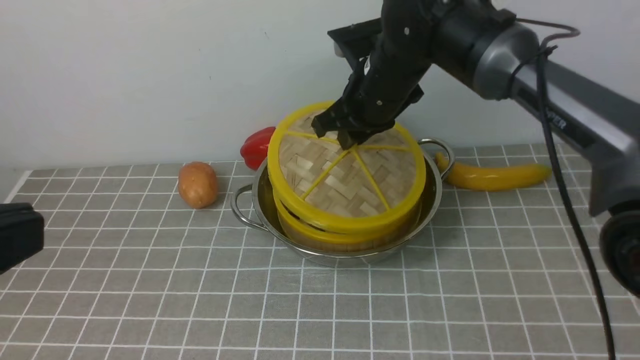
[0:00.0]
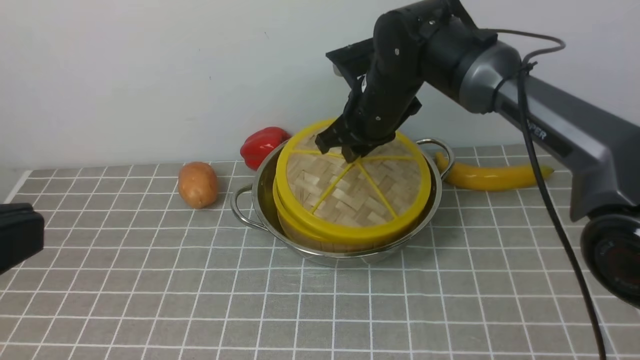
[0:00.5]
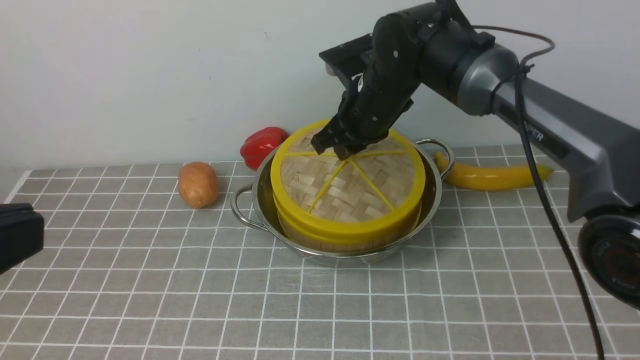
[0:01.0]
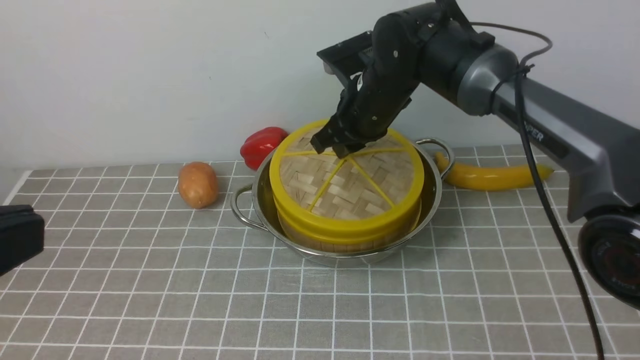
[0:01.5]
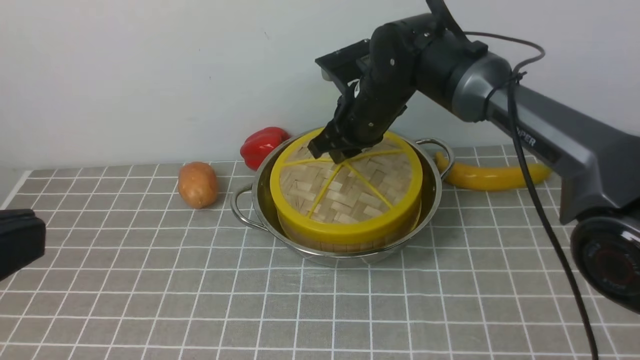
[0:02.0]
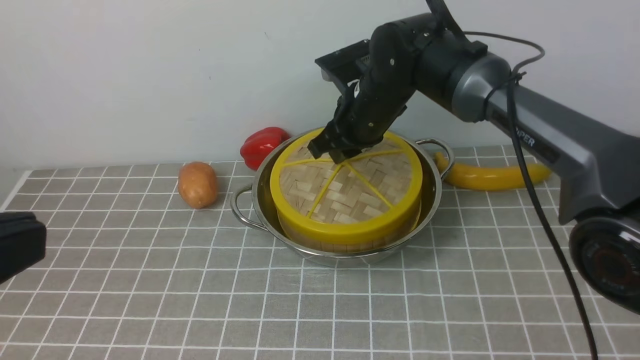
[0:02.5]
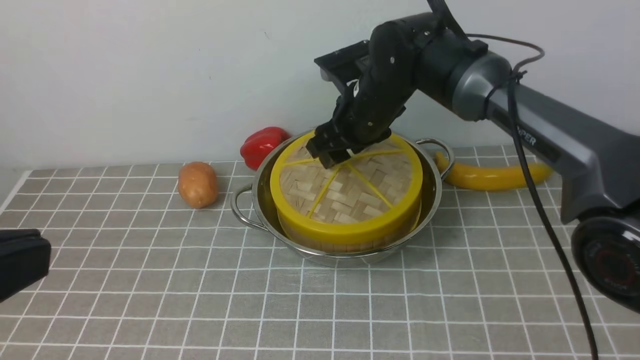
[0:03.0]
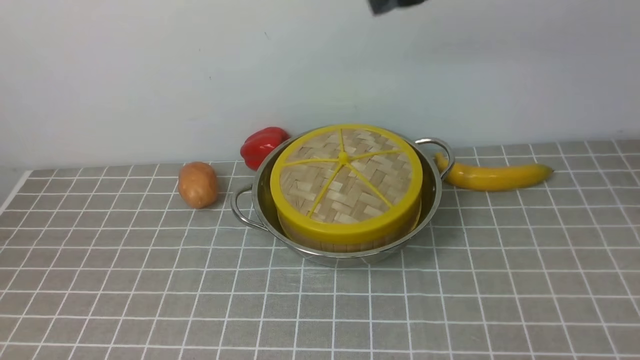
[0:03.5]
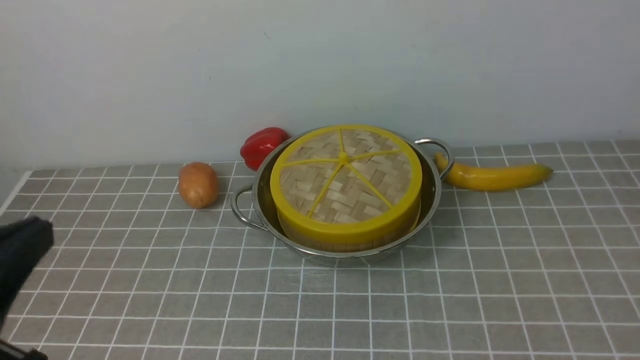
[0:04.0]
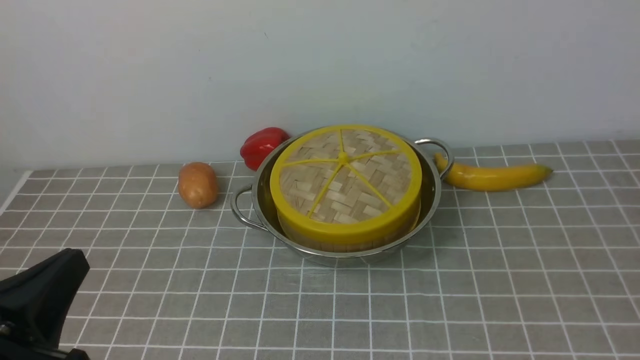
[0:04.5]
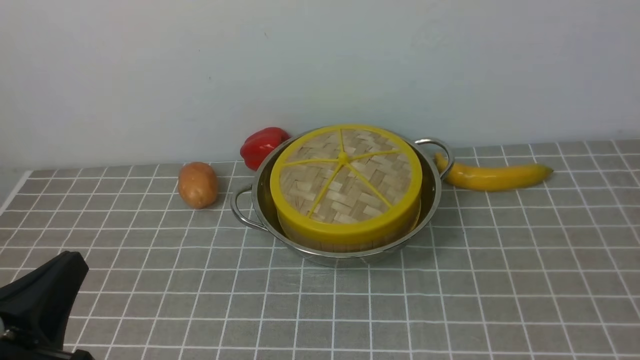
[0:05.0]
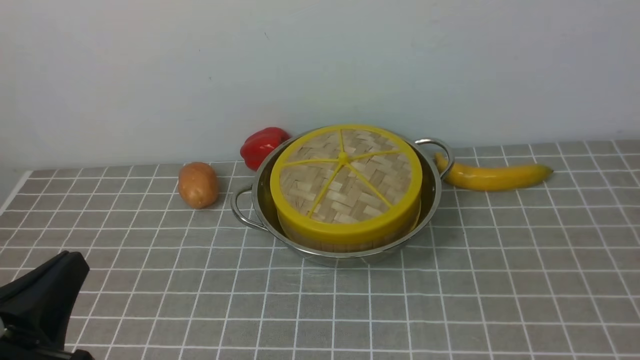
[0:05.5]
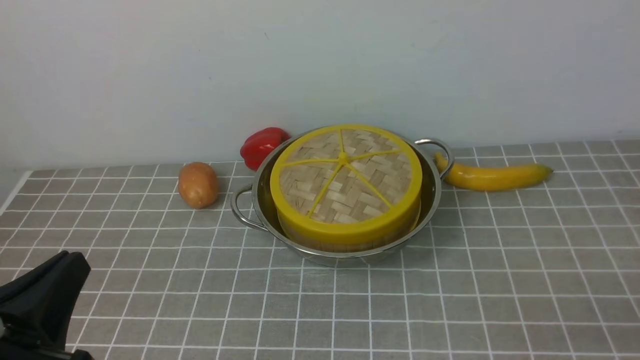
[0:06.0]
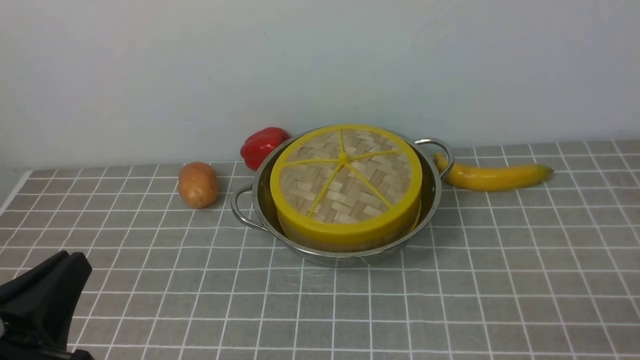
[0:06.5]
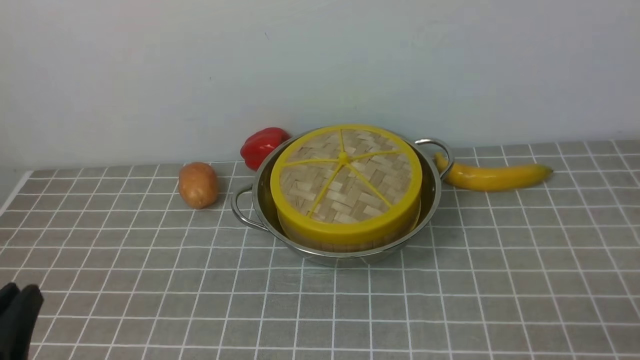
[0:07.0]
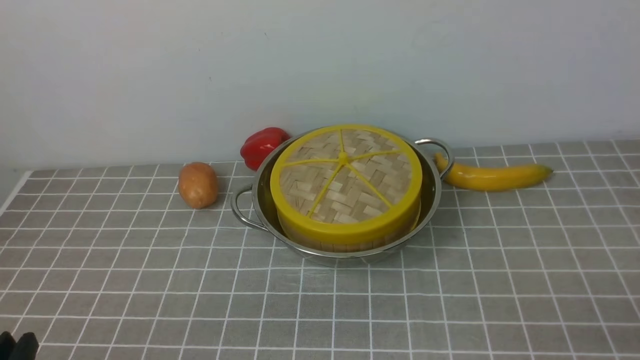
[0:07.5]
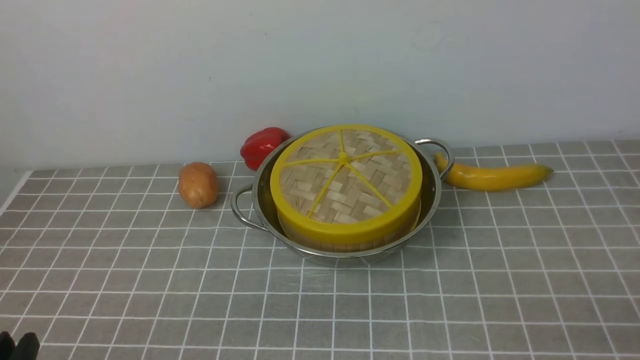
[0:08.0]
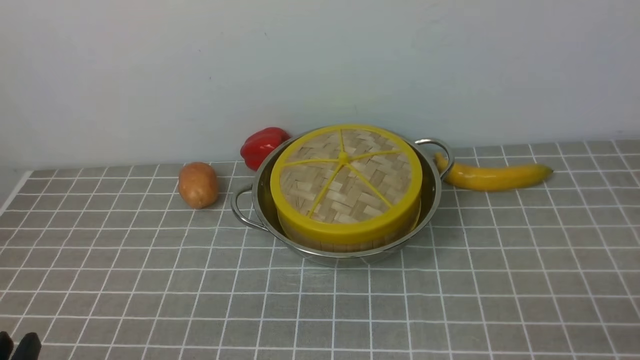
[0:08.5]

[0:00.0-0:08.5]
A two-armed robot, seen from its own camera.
Task of the whole recording: place the steamer in the pot on the grey tablecloth, and put the lid on the steamer.
Step, 0:00.0 to 0:03.0: use the right arm to place the steamer lid on the steamer.
0:00.0 to 0:02.0: The grippers move only a little.
0:02.0 to 0:04.0: The right gripper heads backward, upward and to the right, covering some 50 cm, and opens, while the left gripper moves downward, roughly 10 cm.
0:04.0 to 0:06.5: The left gripper shifts approximately 10 cm downward.
0:06.5 to 0:08.5: The left gripper shifts some 5 cm downward.

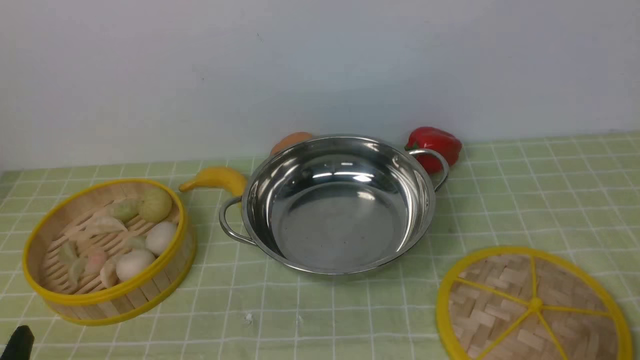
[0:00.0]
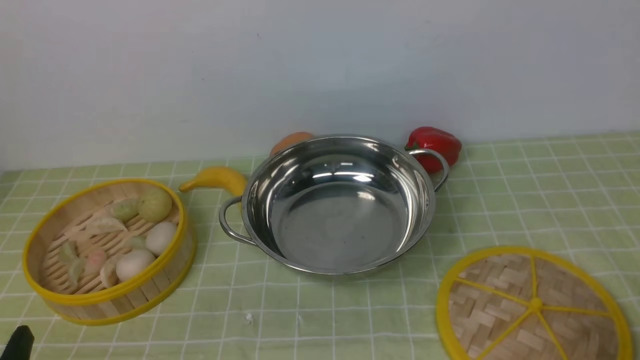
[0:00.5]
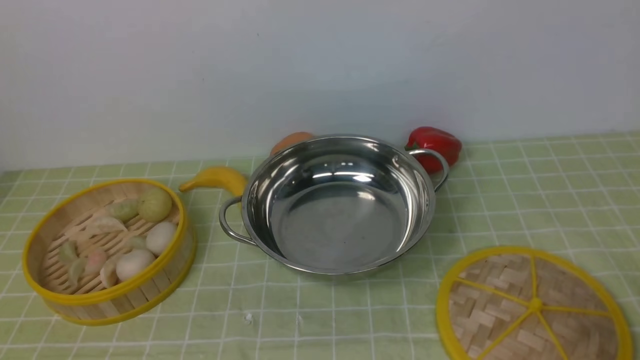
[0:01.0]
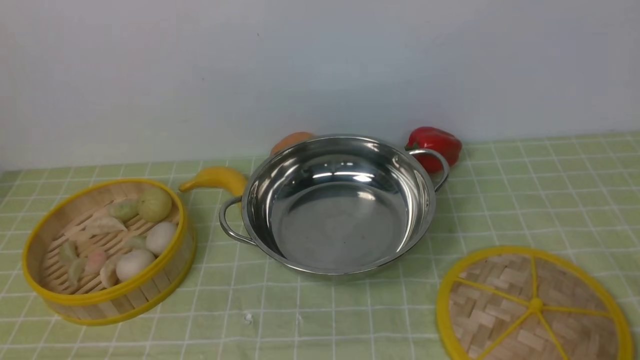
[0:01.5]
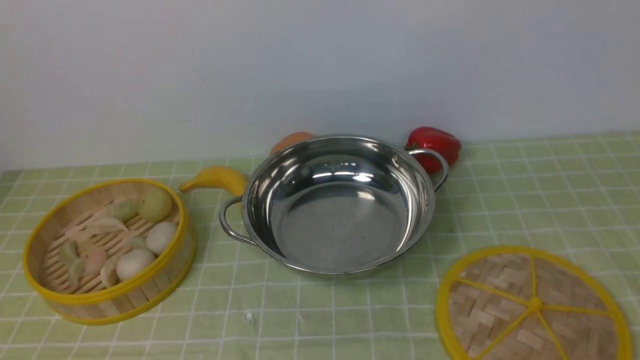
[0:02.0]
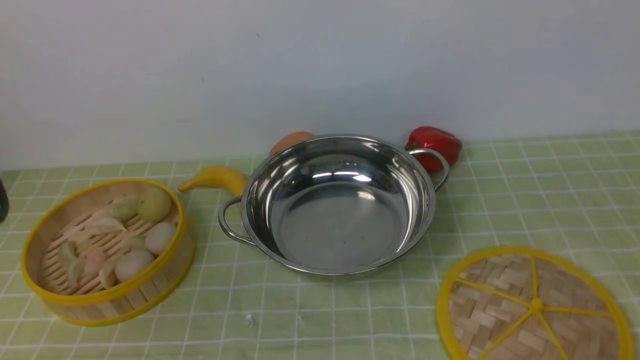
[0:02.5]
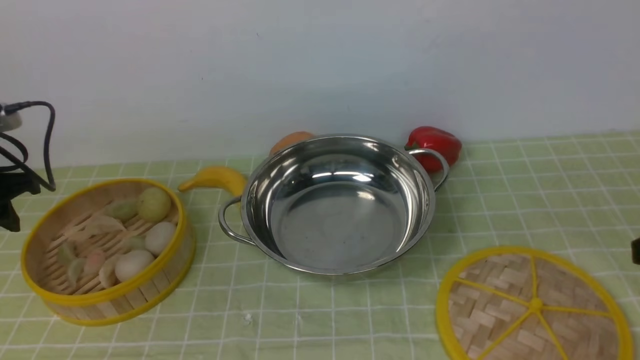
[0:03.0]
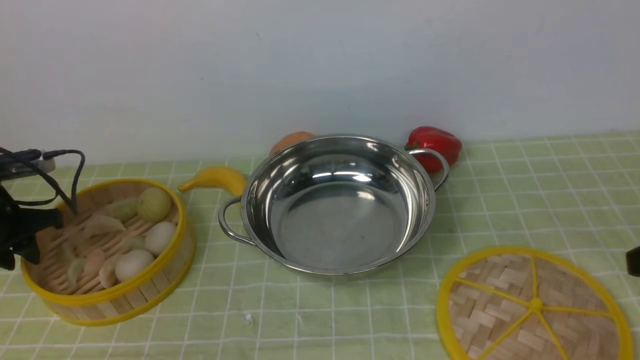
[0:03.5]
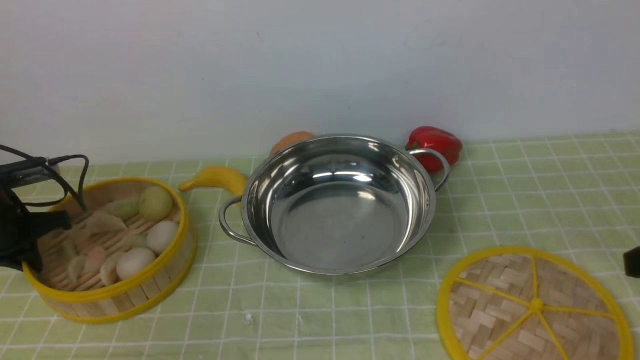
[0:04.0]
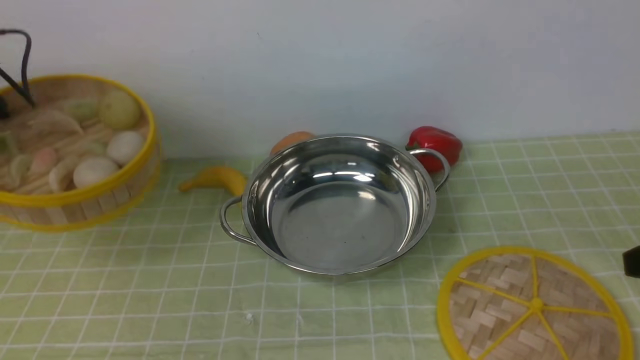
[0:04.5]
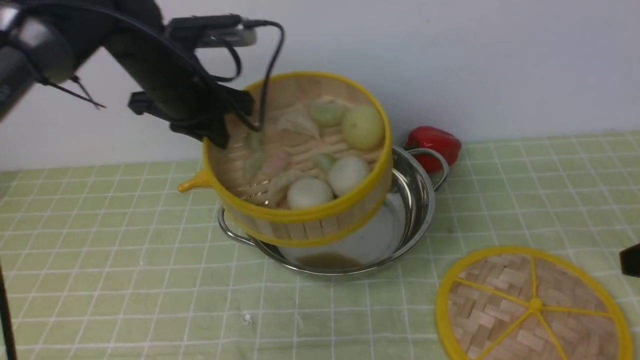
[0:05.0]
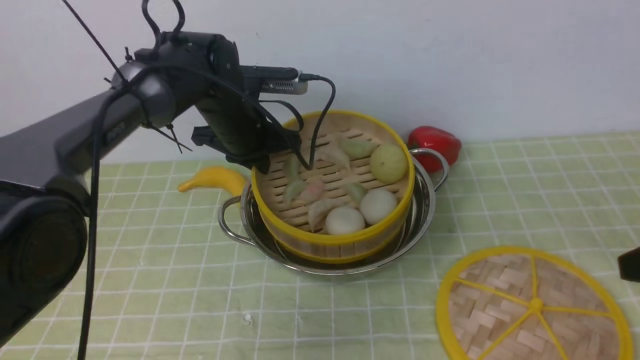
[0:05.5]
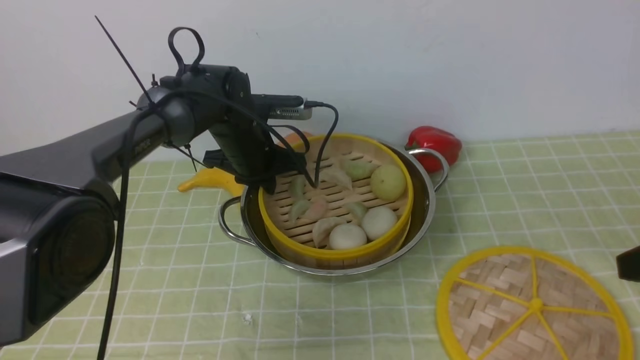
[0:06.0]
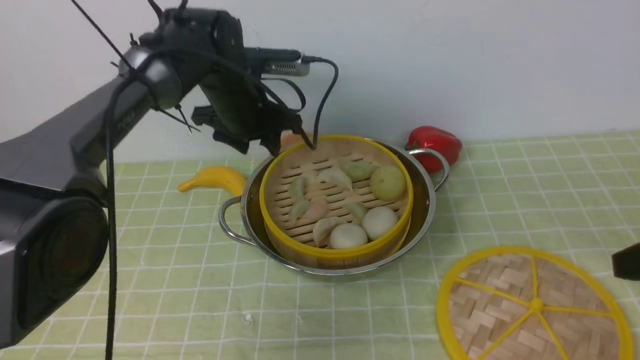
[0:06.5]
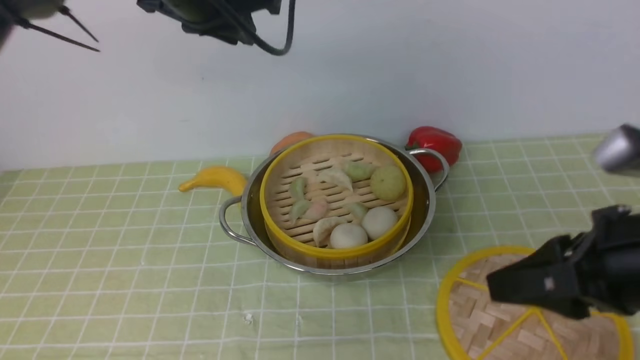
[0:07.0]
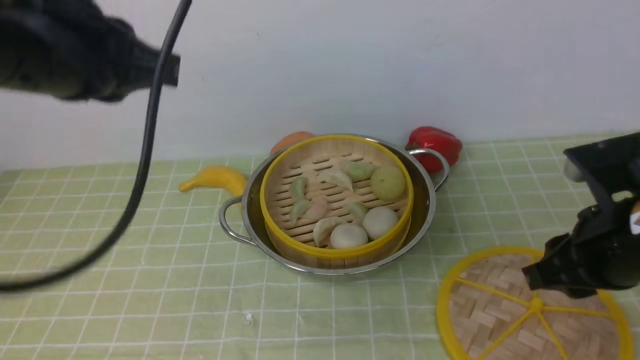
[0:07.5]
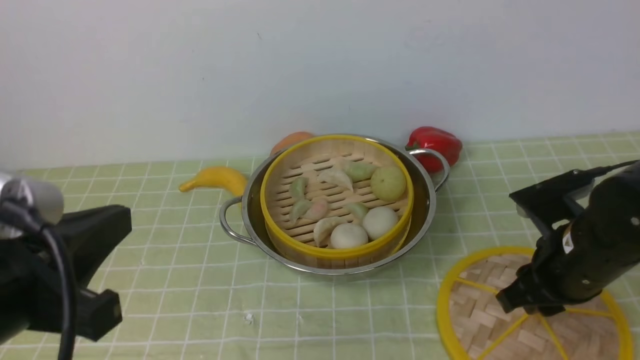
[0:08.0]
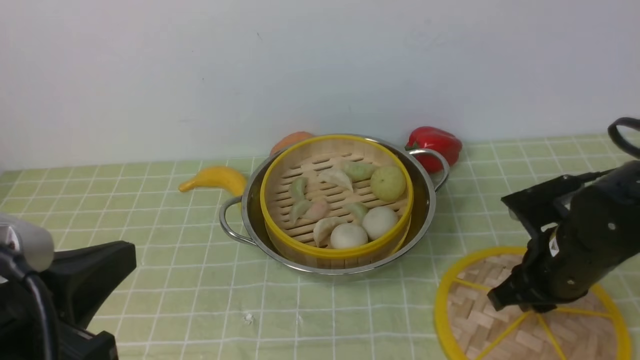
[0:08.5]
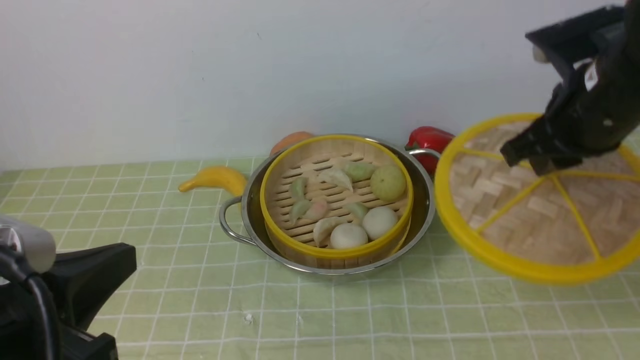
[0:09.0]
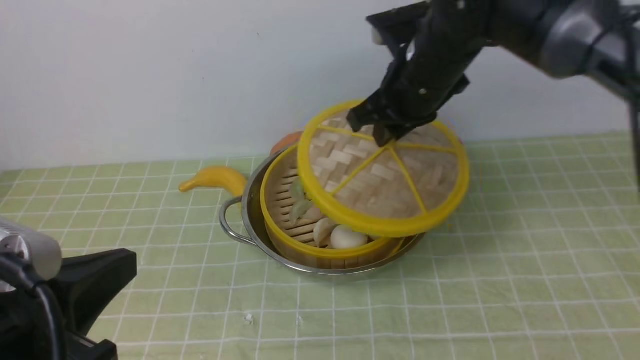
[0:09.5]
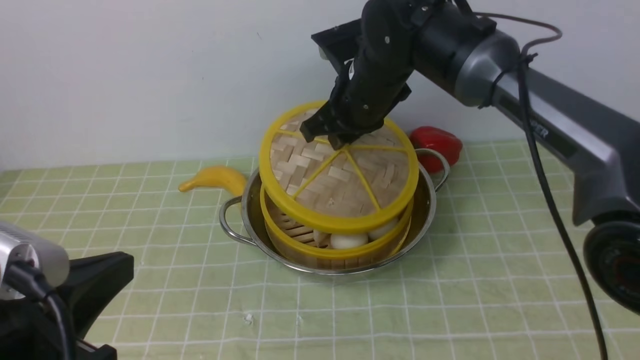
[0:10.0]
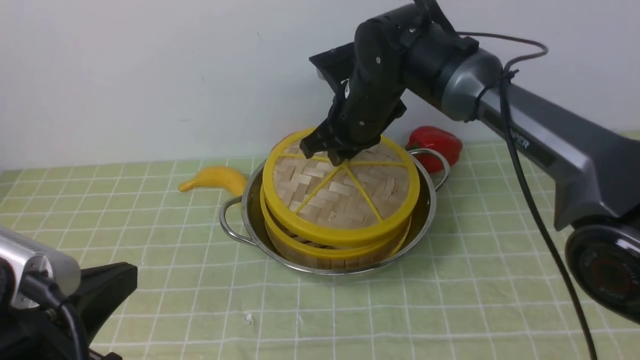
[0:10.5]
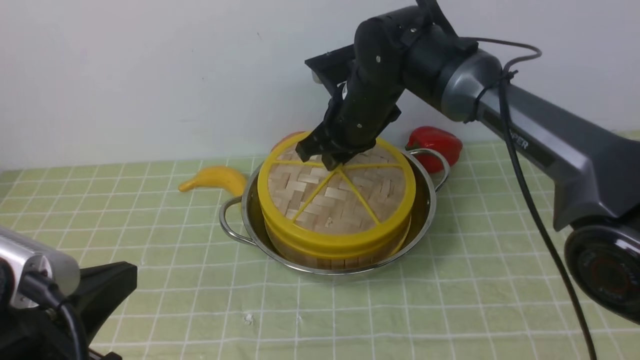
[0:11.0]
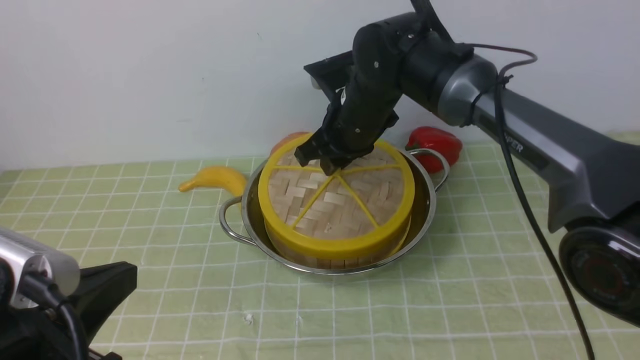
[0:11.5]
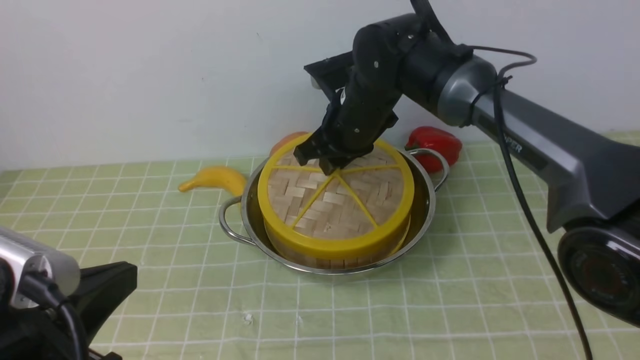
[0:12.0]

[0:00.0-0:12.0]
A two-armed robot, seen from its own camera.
Task of the whole recording: place the steamer in the pot on the green tablecloth, and put the lid on the steamer.
Step, 0:00.0 to 0:04.0: use the left arm to lift the steamer closest to it.
Step, 0:05.0 to 0:06.5: use the left arm to put the steamer into the iron steamer pot in the middle.
Step, 0:07.0 to 0:09.0: use the right arm to lift the lid of the steamer.
0:02.0 to 0:04.0: The left gripper travels forward, downward and to the left by some 40 cm, and closes.
0:04.0 to 0:06.0: The left gripper is displaced to the right by approximately 30 cm.
0:06.0 to 0:08.0: The left gripper shifts approximately 40 cm backward and upward, and opens and closes again; the right gripper shifts some 15 cm downward, to the left and forward.
0:08.0 to 0:10.0: The right gripper is displaced to the left, forward and upward by approximately 25 cm.
0:10.0 to 0:12.0: The grippers move only a little.
